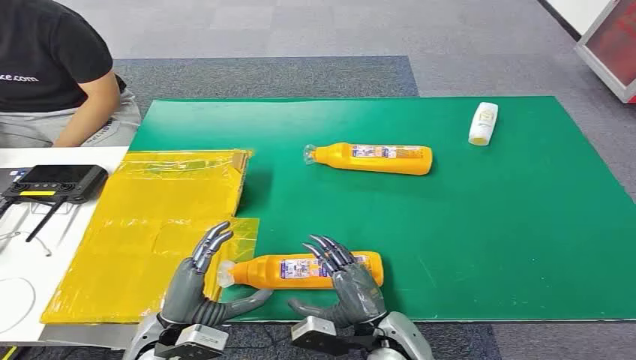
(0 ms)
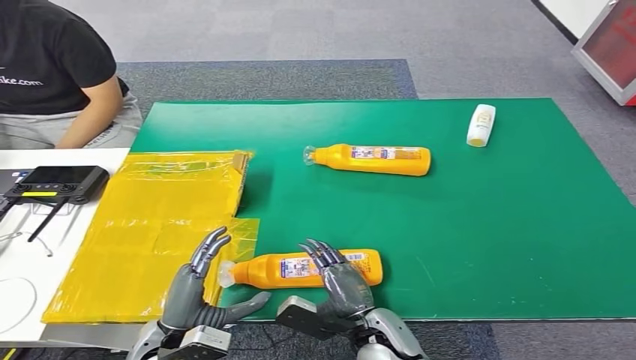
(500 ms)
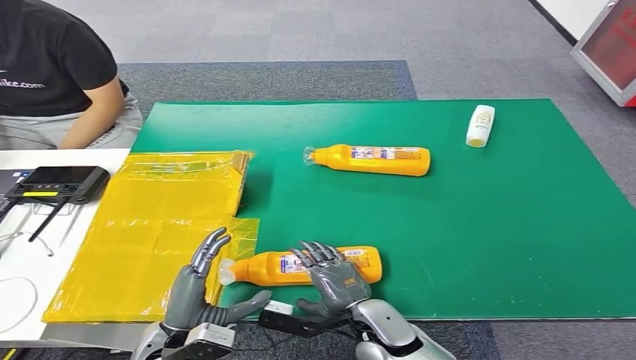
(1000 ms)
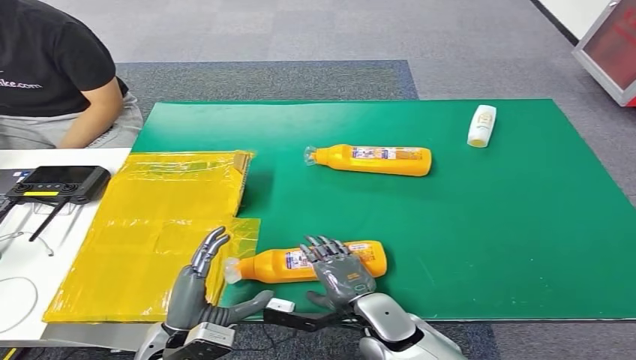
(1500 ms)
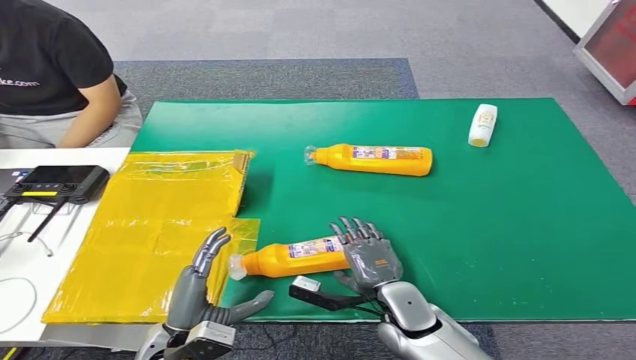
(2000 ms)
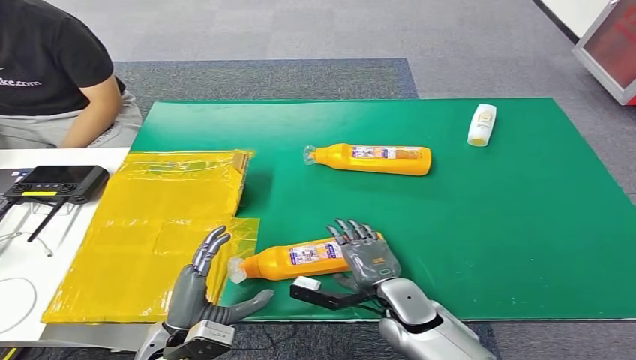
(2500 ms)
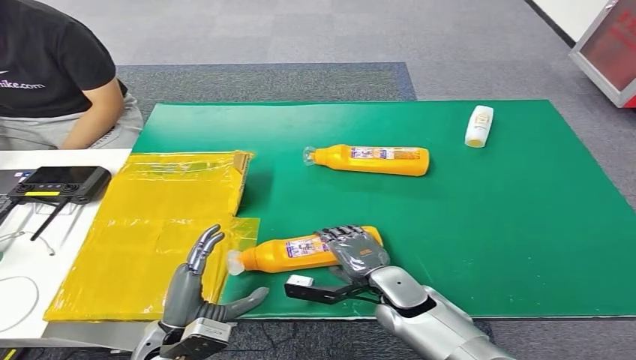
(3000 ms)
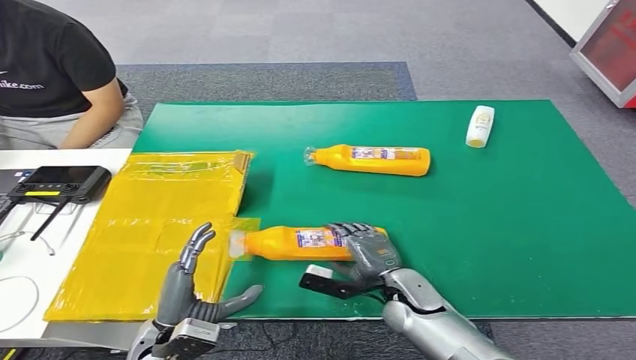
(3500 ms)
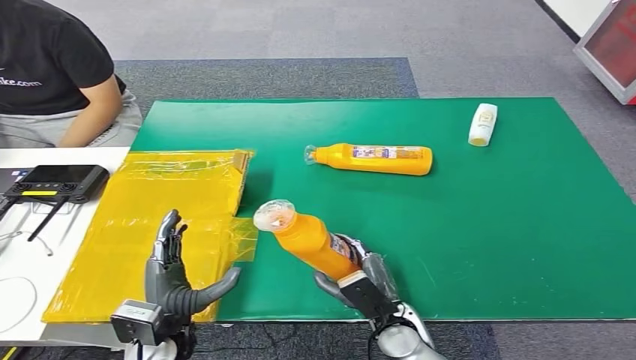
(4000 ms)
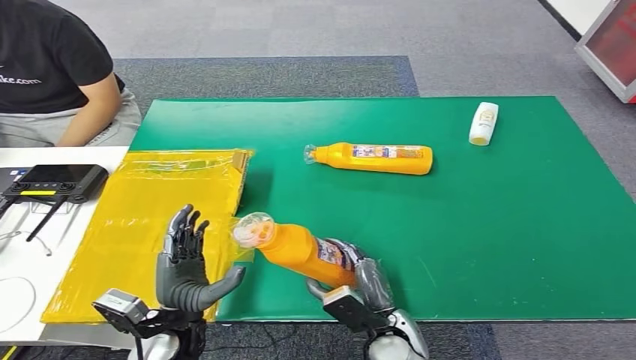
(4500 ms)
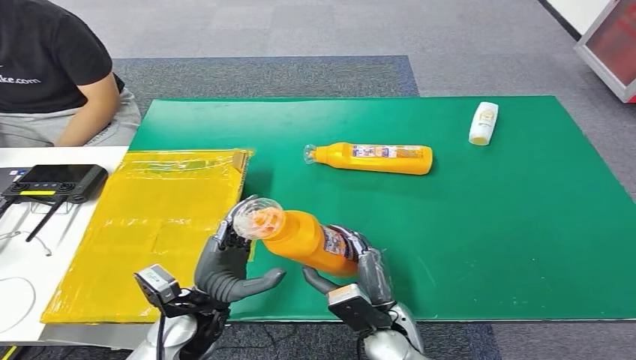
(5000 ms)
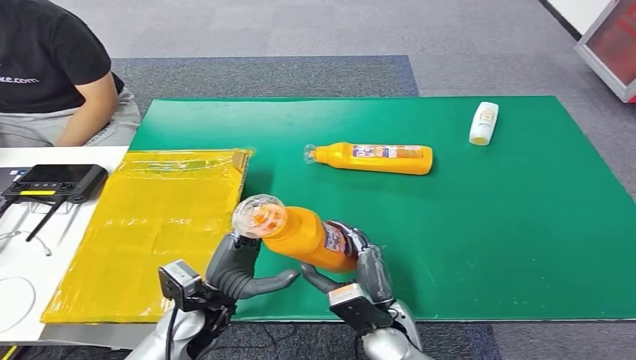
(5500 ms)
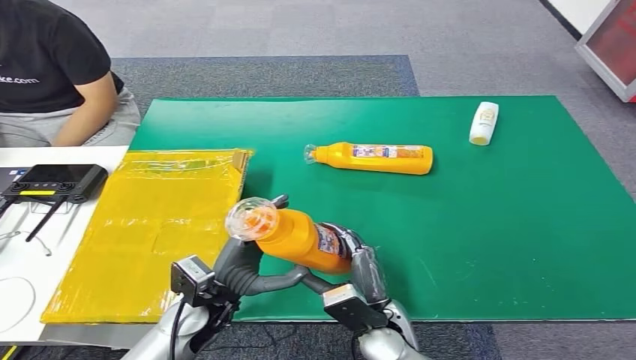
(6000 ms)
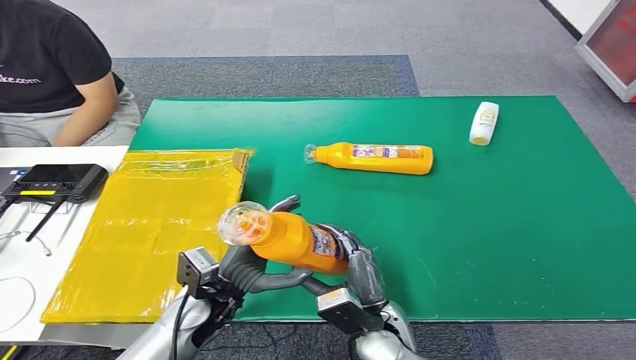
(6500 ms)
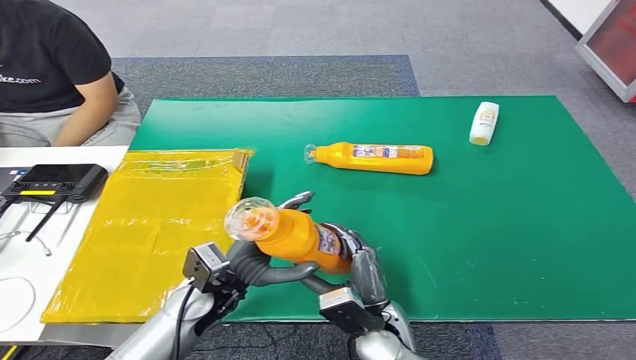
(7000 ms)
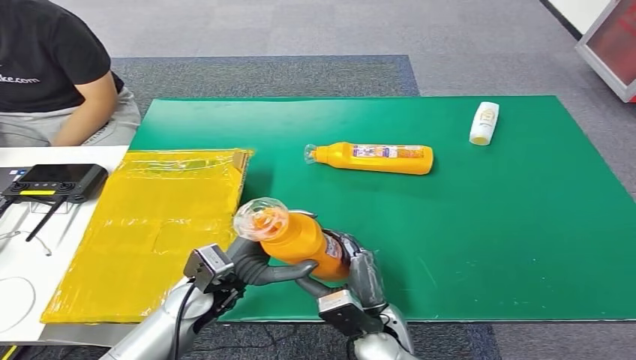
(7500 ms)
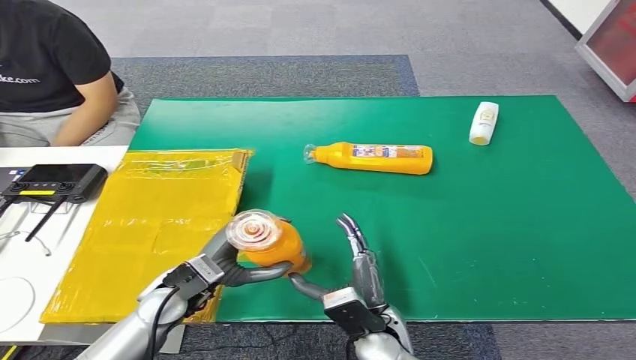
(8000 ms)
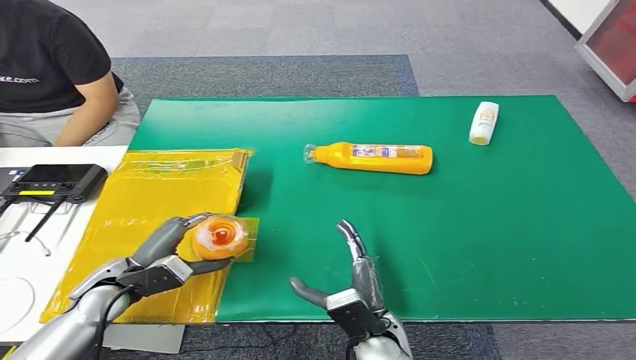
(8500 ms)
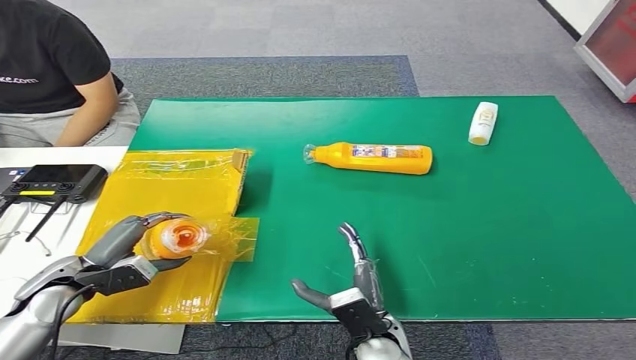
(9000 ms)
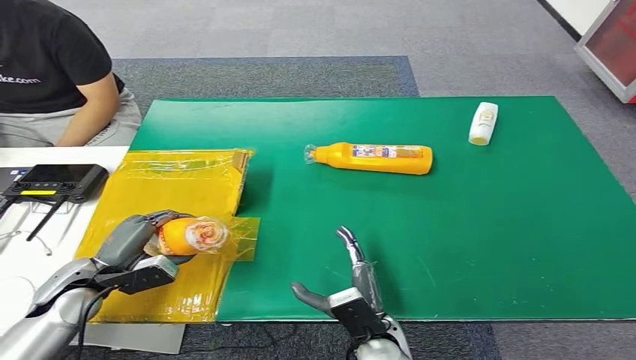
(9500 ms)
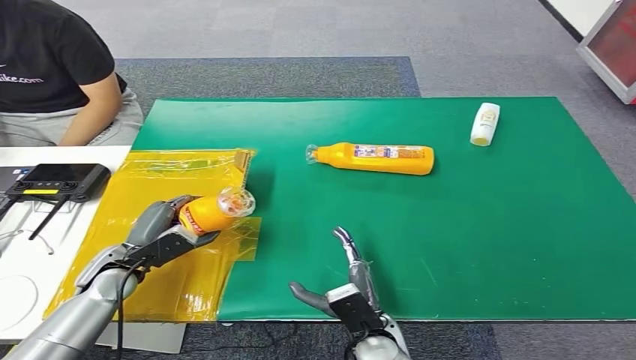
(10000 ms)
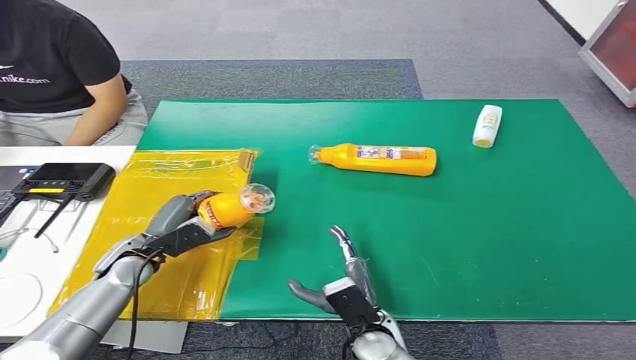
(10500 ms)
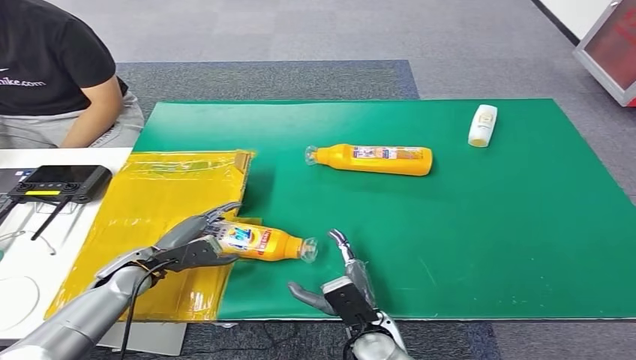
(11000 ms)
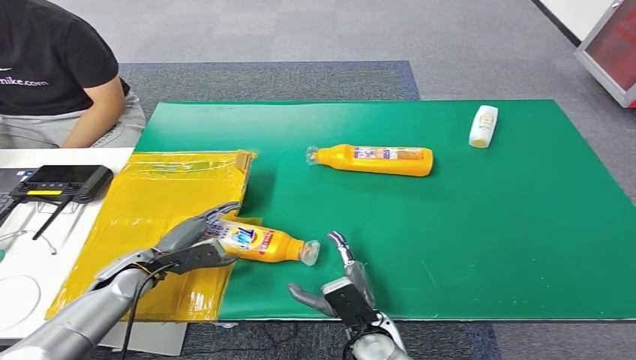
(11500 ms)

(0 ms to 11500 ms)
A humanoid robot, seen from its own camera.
Step, 0 ms - 5000 ms: Pick up the bottle from the table.
Step, 5500 ms - 11500 ms: Turn the bottle to the front side.
4000 ms - 6000 ms: The right hand shifts by approximately 5 cm. The left hand ends up roughly 5 cm from where it was.
6000 ms - 7500 ms: The hands move only a little.
7500 ms - 9500 ms: The left hand heads to the left, covering roughly 20 cm.
9500 ms - 11500 ms: The left hand moves some 5 cm.
